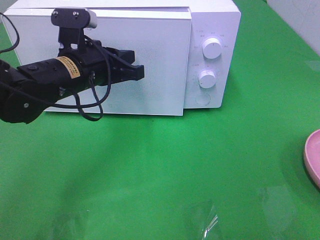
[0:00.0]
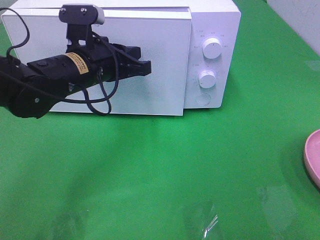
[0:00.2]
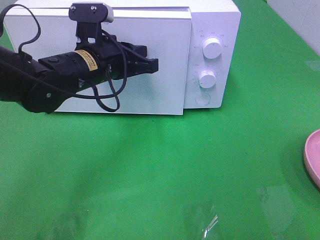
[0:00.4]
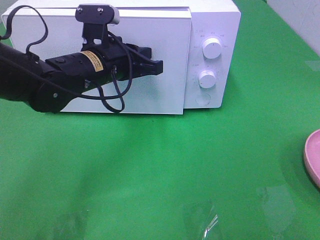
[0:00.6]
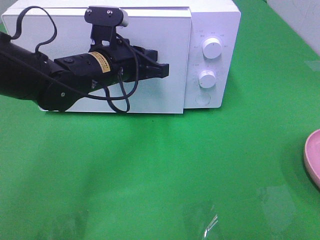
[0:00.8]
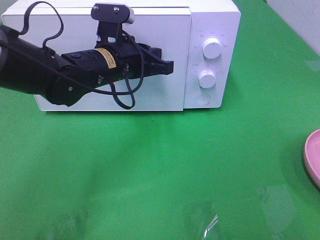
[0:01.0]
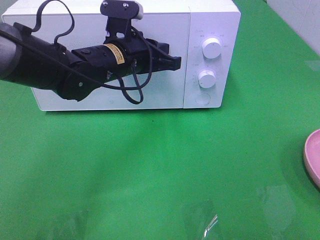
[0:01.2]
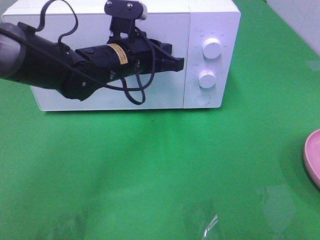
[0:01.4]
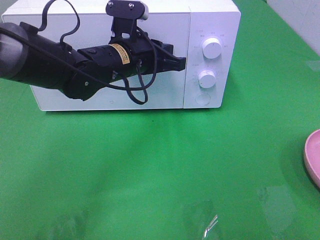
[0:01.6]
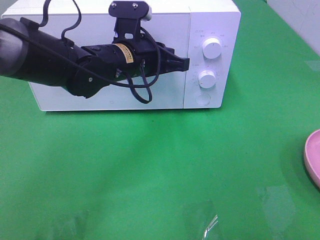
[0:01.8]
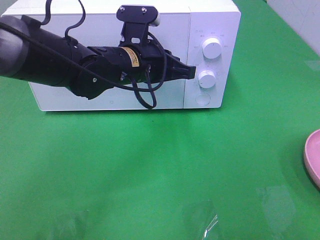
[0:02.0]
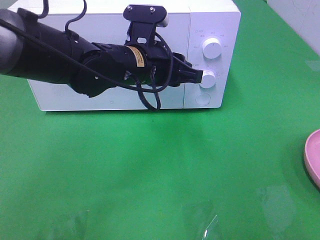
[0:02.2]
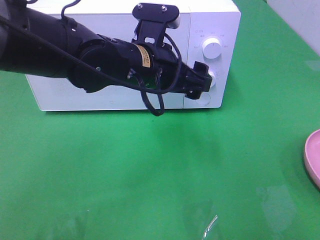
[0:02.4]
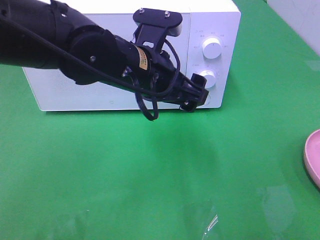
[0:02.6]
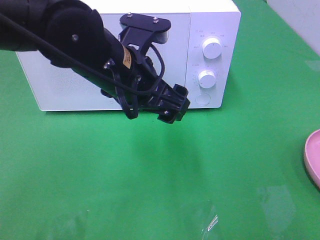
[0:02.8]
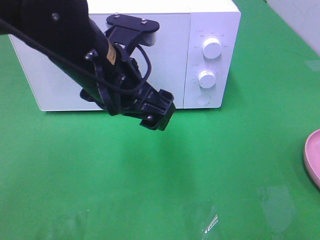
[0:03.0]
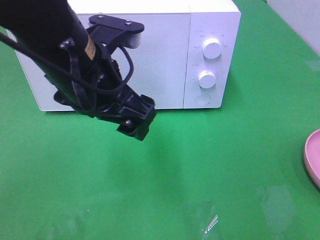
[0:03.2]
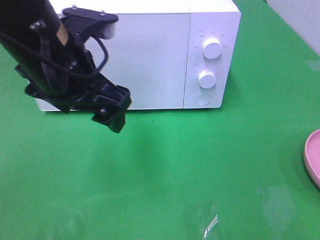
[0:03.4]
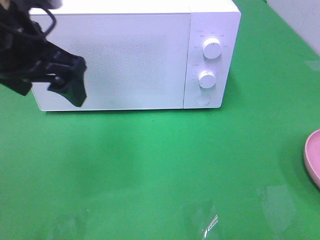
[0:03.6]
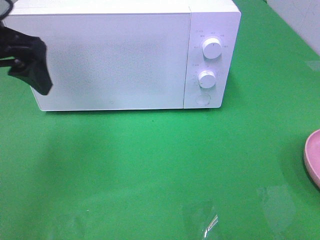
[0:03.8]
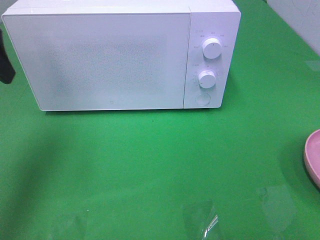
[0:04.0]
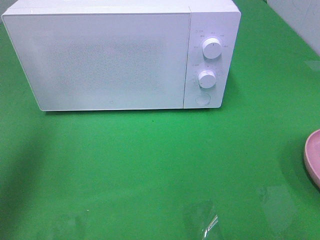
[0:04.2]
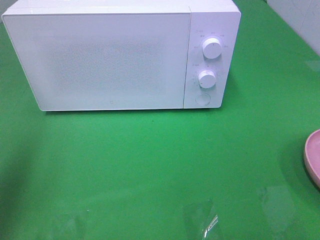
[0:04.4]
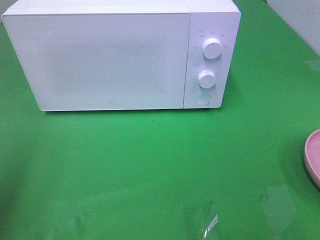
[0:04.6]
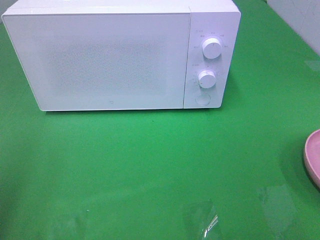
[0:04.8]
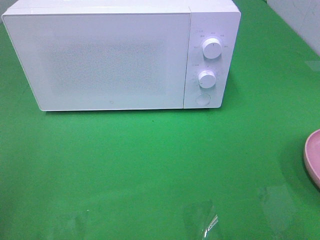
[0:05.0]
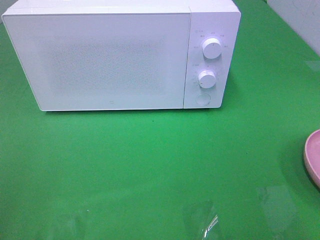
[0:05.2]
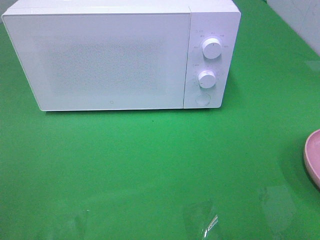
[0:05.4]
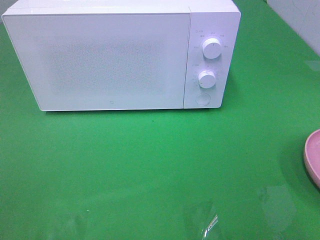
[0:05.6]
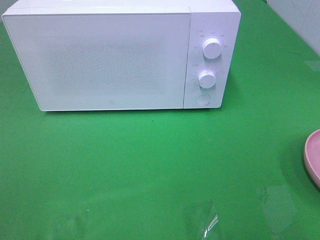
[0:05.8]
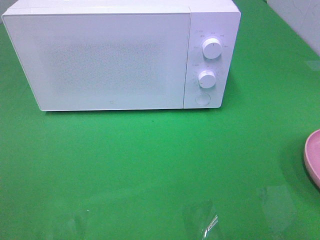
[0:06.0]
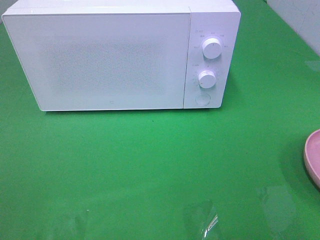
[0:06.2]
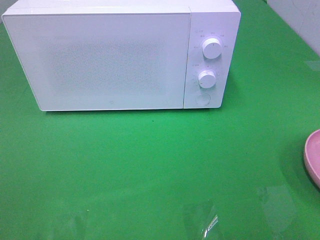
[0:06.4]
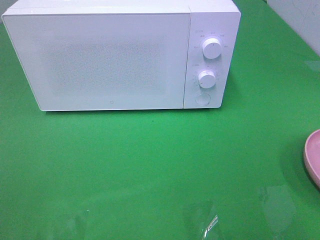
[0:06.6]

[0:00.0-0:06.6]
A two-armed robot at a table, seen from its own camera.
Task of the whole recording: Heat the burger.
Step, 0:00.0 to 0:02.2: Left hand: close the microwave door.
0:00.0 to 0:01.6: The left gripper moves to the right, roughly 5 cm.
0:01.6 to 0:03.2: The left gripper is displaced backward and upward by approximately 15 cm, and opens up.
0:03.2 to 0:05.0: The left gripper shifts roughly 30 cm to the left and backward.

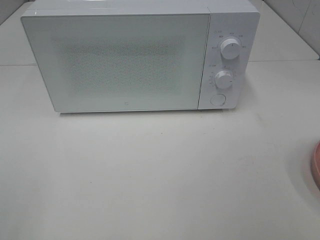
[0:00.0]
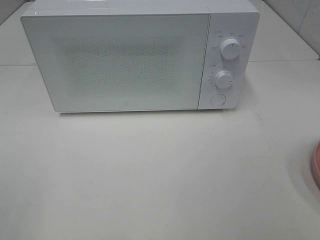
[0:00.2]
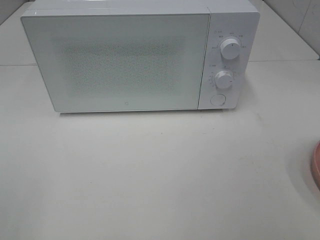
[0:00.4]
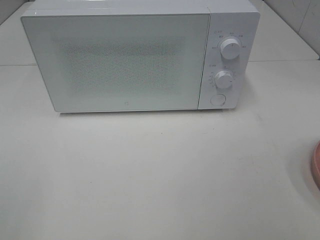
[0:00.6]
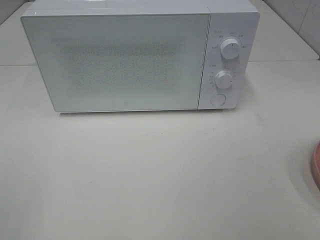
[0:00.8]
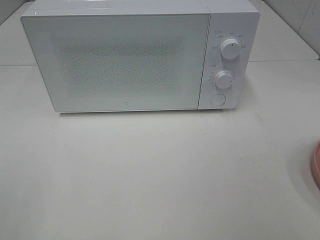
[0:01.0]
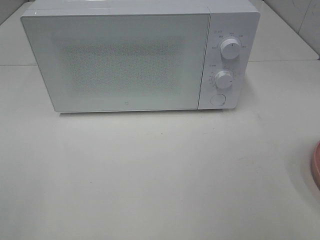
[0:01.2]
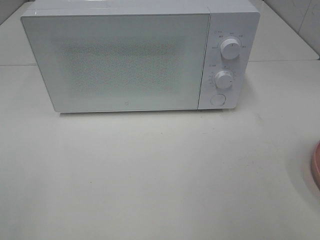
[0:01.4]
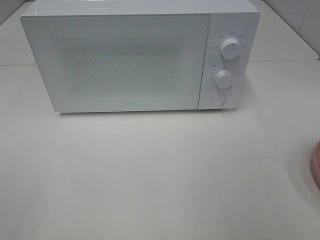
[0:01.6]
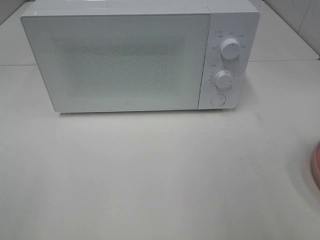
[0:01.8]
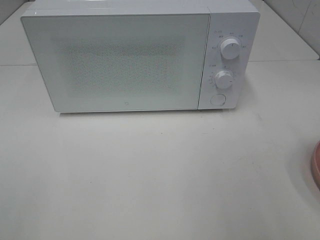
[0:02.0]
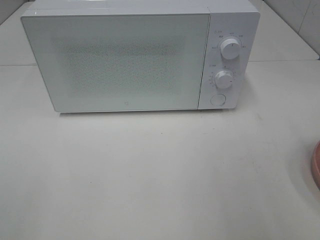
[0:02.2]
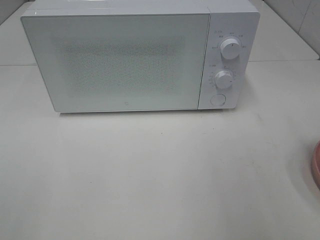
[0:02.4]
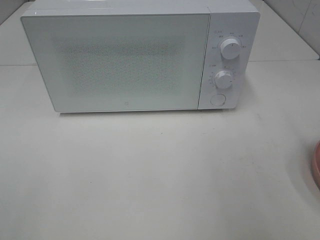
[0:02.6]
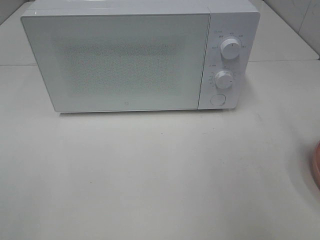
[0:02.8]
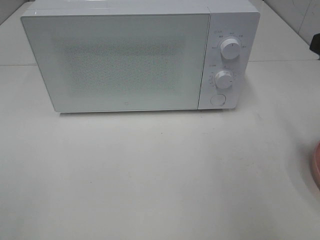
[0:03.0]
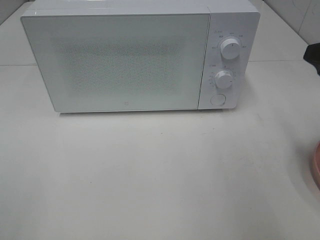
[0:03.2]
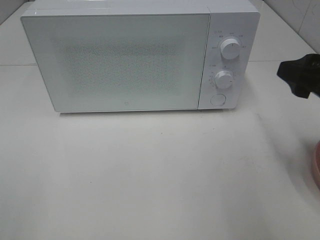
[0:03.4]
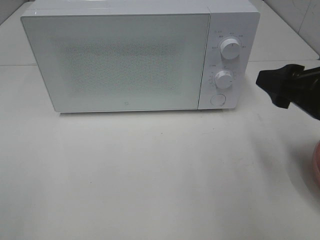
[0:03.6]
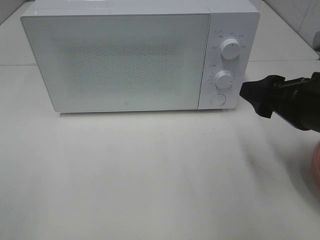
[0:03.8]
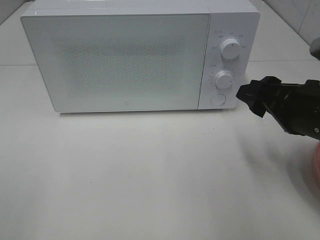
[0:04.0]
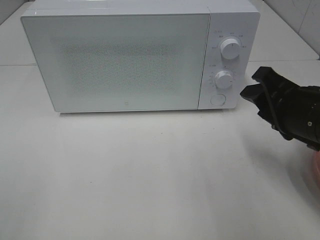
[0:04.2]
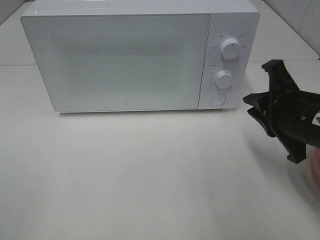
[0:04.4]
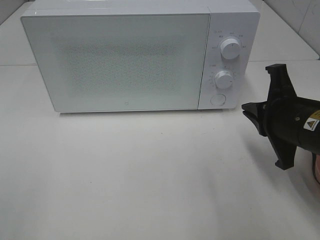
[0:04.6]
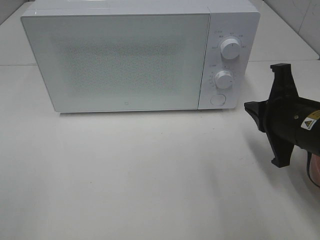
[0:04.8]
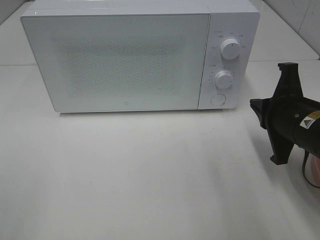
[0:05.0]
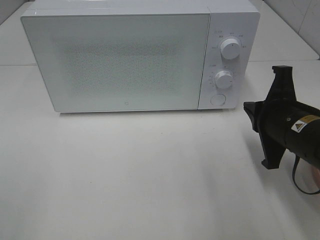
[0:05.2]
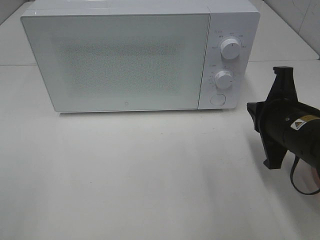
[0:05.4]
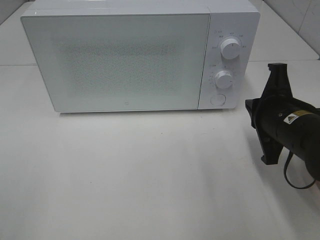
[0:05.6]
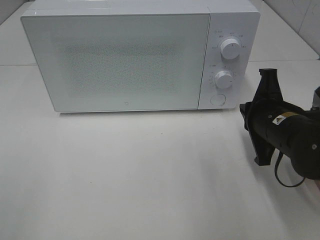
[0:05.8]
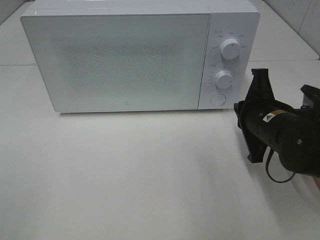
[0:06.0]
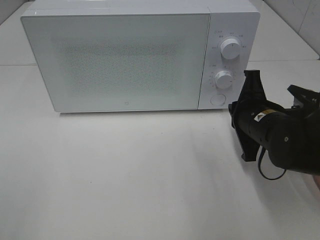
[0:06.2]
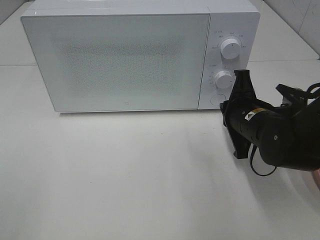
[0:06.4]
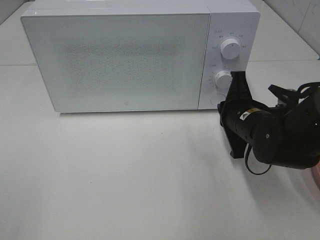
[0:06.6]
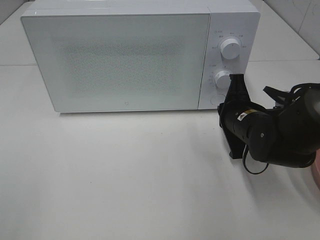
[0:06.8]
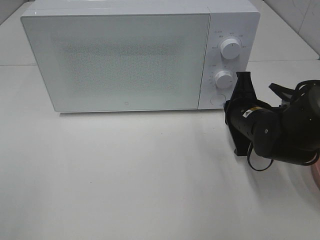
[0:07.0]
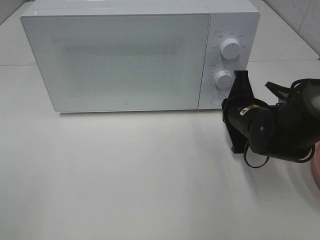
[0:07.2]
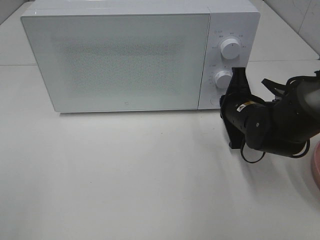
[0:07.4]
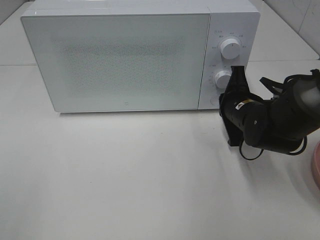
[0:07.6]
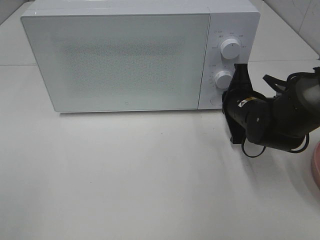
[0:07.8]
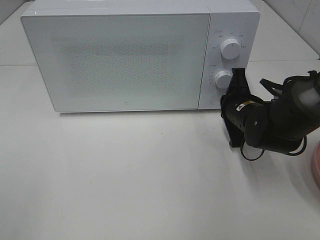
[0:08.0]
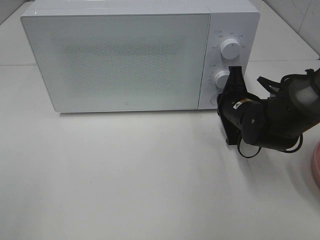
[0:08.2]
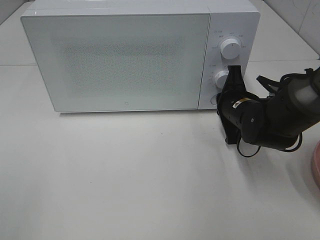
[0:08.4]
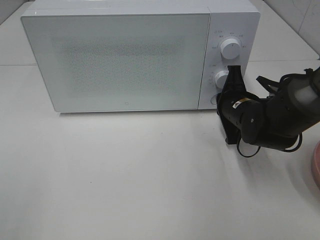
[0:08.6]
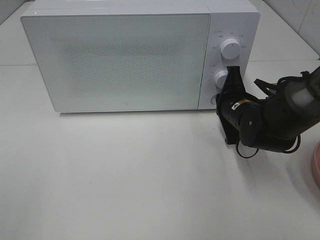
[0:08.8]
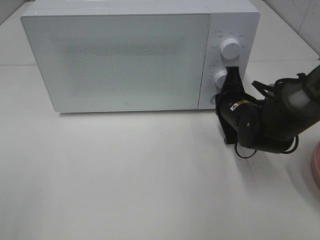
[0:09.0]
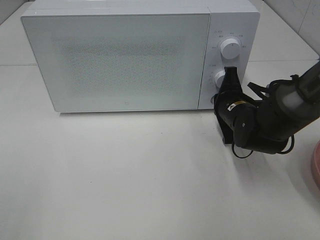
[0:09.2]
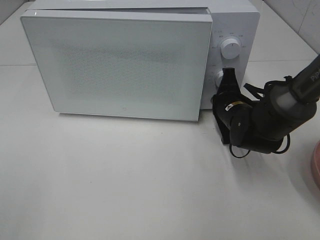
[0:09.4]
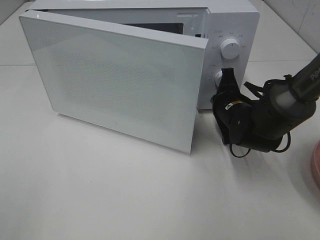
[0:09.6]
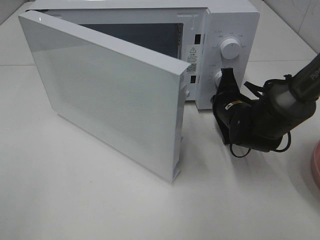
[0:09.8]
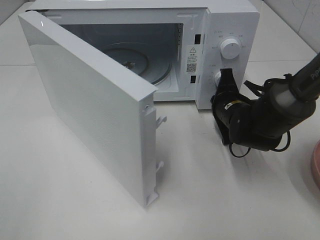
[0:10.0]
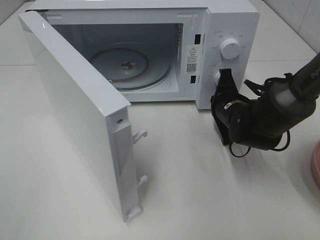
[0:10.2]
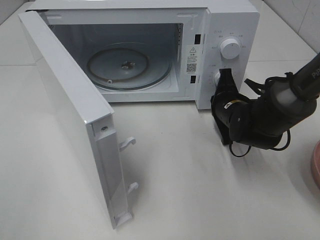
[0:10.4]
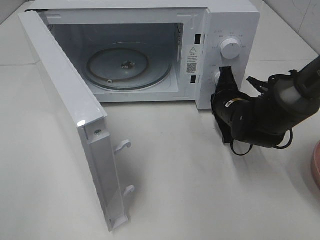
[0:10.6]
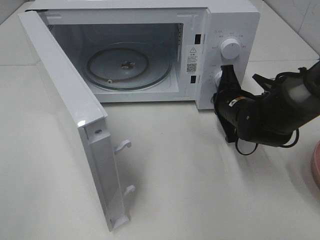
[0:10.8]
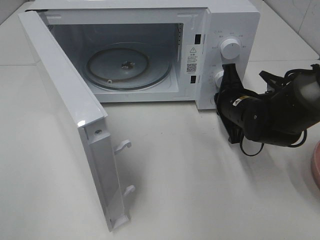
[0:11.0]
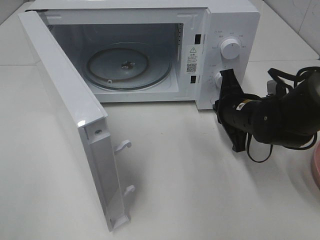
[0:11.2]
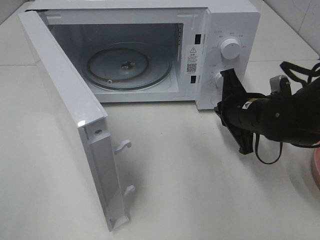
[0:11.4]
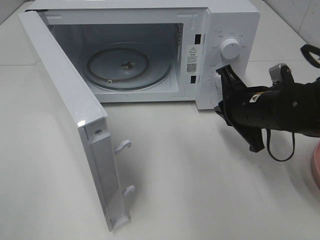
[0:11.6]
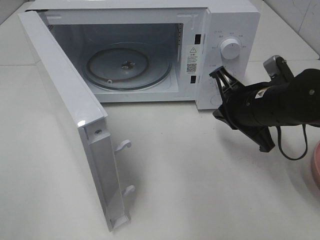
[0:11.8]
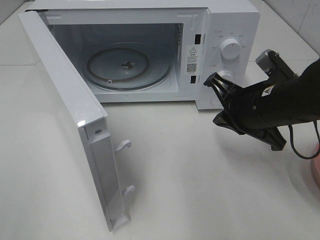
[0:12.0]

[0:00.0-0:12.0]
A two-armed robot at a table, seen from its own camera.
Task of the whole recording: Heat the burger.
Step, 0:00.0 to 0:11.2: Right hand: press the switch.
0:03.0 to 0:04.4: The right gripper travels downward and to the left by approximately 10 cm, and closes its fingers.
0:04.4 to 0:06.0: The right gripper moves approximately 5 cm.
0:06.0 to 0:07.6: The right gripper goes some 5 cm forward.
0:07.6 to 0:09.0: There are only small adjustments of the grippers.
0:10.4 to 0:12.0: The right gripper shifts some 15 cm upward and backward.

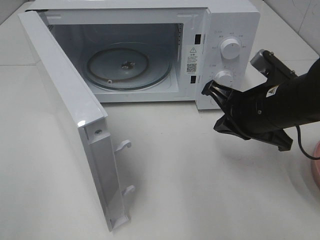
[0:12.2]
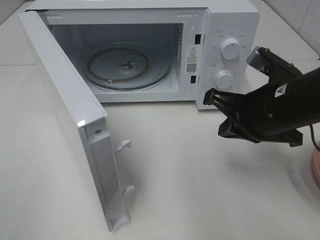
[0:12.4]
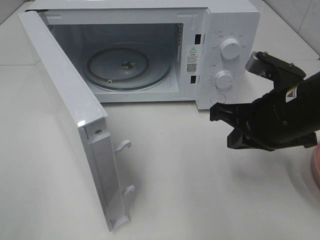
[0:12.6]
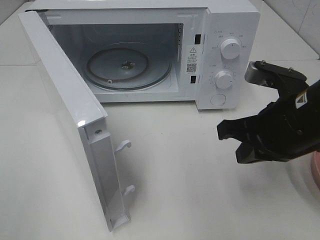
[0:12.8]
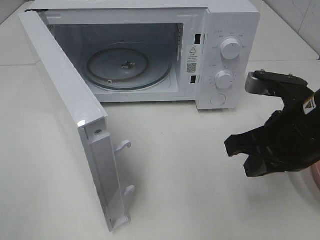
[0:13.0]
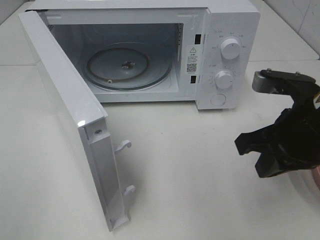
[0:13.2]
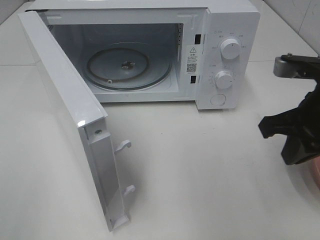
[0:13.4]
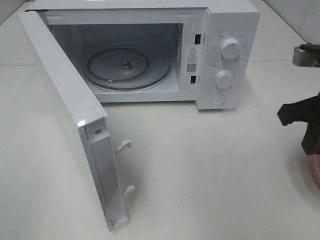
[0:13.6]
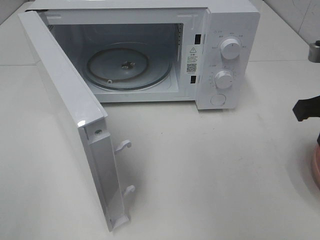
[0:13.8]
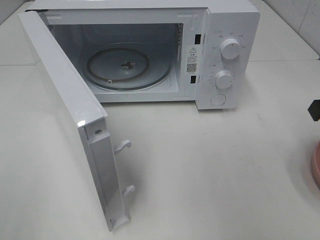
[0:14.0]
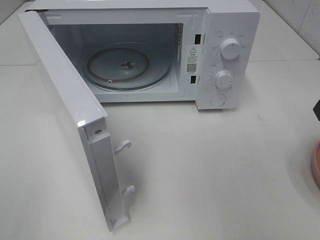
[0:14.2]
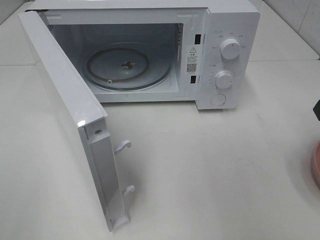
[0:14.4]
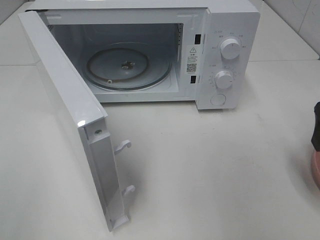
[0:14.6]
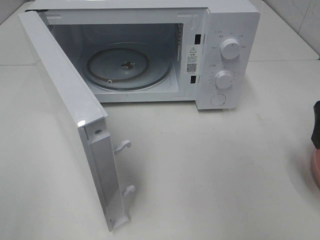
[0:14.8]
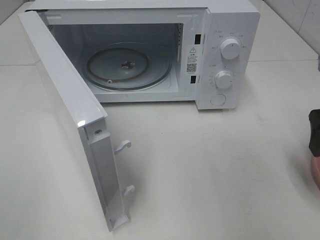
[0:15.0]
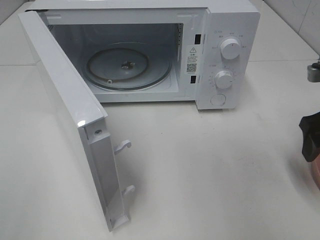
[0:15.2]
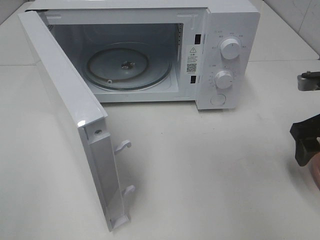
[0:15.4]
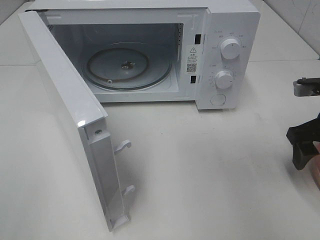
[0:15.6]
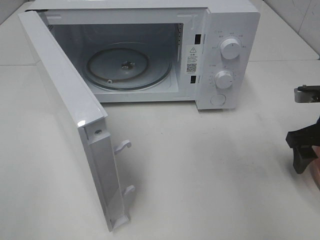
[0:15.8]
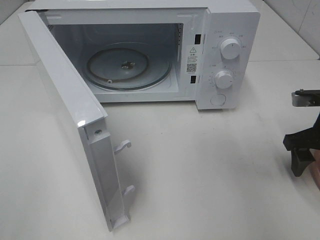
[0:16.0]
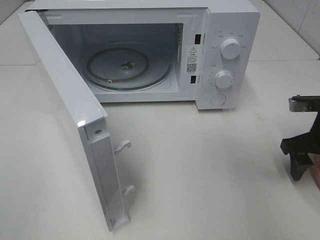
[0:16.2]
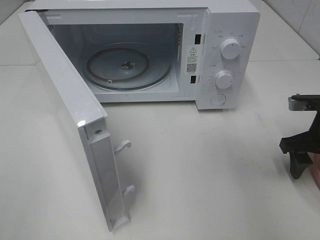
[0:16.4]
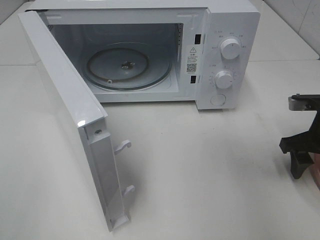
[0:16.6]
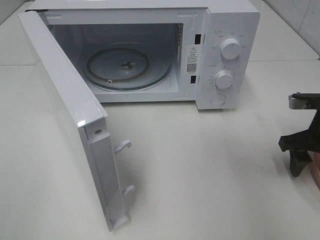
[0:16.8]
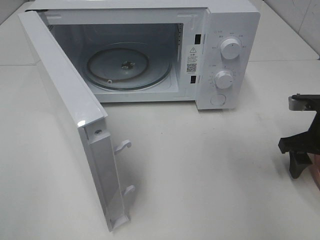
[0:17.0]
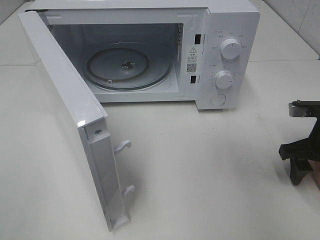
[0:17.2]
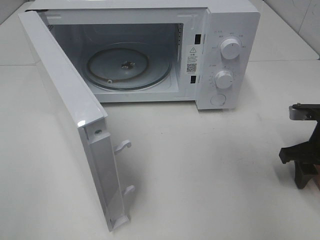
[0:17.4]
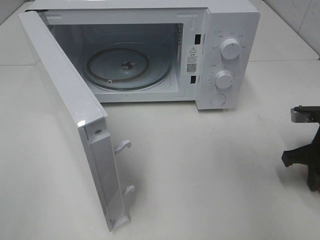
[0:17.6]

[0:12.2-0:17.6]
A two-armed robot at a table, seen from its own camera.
Task of the whole recording: Heat the burger.
0:12.2 to 0:13.6: The right gripper moves to the right and upward, approximately 10 cm.
0:13.6 to 0:15.0: The right gripper heads to the right, covering roughly 5 cm, and opens.
0:15.0 to 0:16.2: The right gripper goes approximately 10 cm downward.
0:16.2 to 0:17.6: The right gripper closes up.
